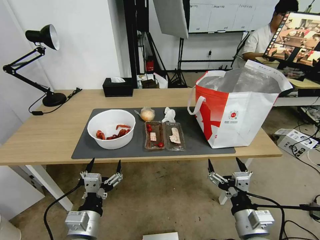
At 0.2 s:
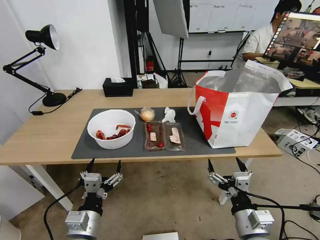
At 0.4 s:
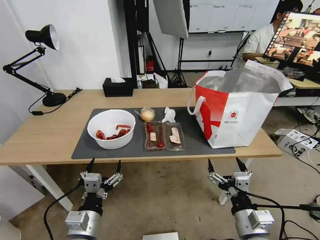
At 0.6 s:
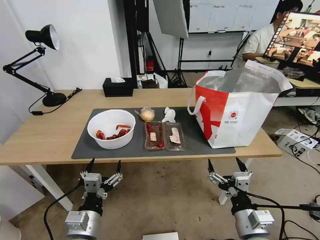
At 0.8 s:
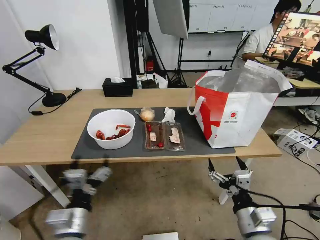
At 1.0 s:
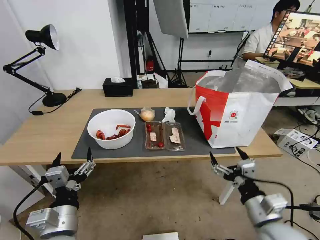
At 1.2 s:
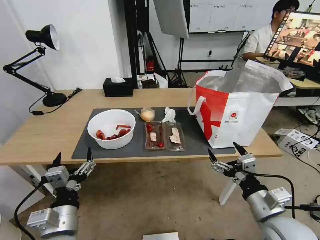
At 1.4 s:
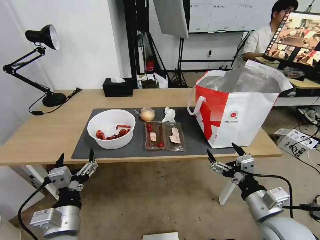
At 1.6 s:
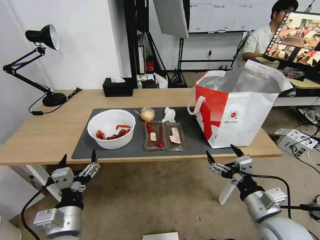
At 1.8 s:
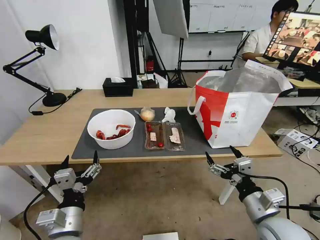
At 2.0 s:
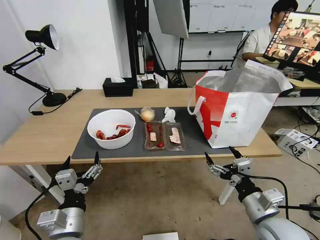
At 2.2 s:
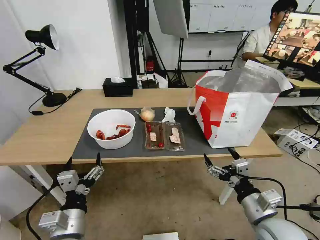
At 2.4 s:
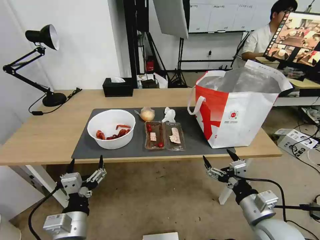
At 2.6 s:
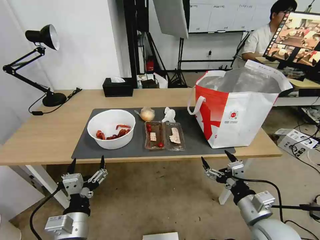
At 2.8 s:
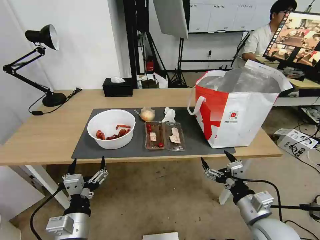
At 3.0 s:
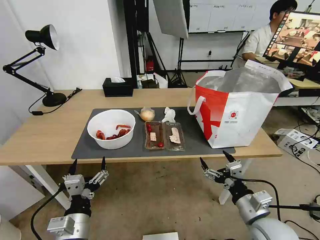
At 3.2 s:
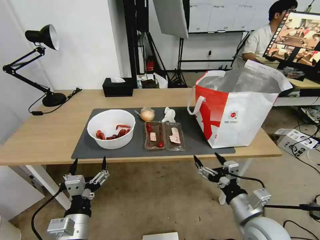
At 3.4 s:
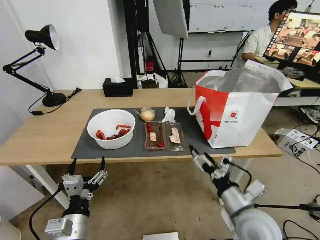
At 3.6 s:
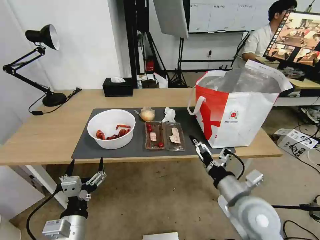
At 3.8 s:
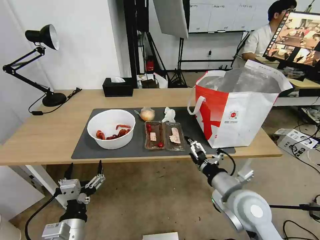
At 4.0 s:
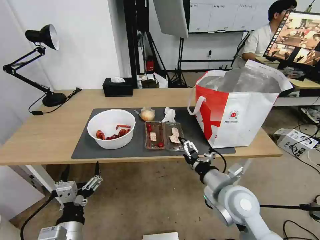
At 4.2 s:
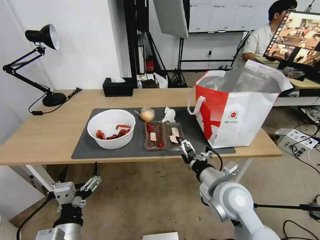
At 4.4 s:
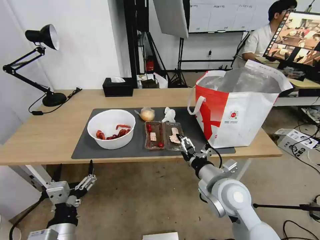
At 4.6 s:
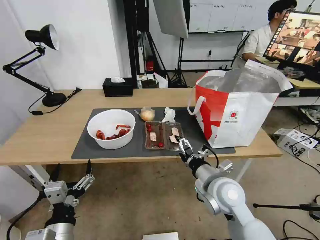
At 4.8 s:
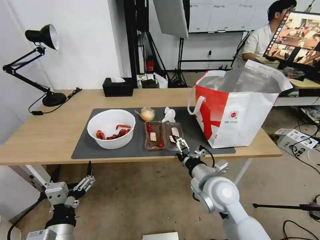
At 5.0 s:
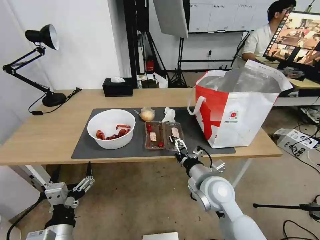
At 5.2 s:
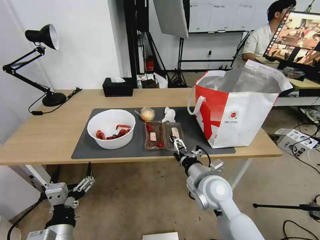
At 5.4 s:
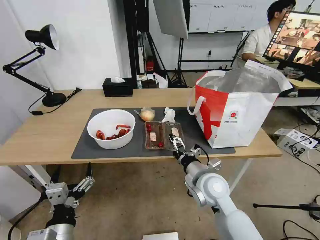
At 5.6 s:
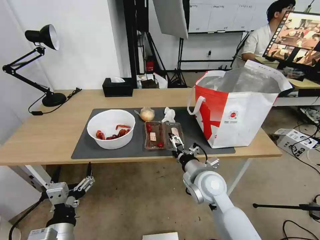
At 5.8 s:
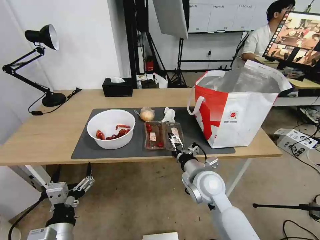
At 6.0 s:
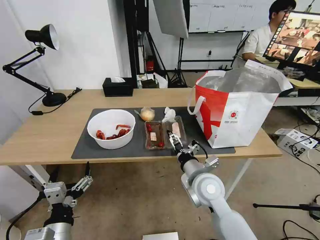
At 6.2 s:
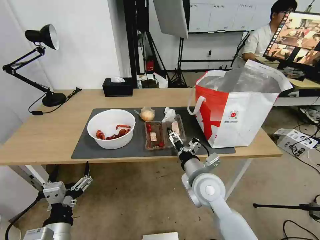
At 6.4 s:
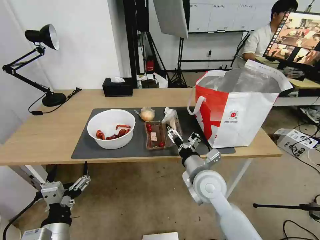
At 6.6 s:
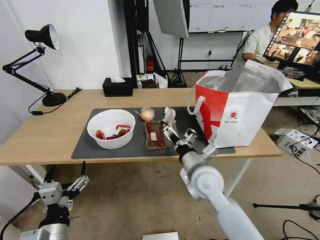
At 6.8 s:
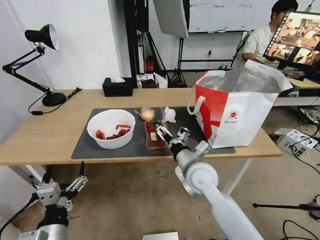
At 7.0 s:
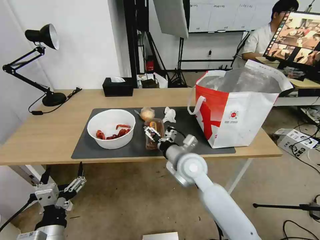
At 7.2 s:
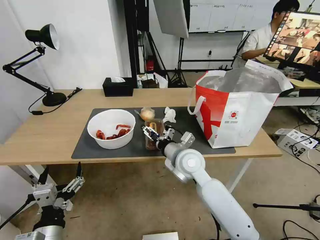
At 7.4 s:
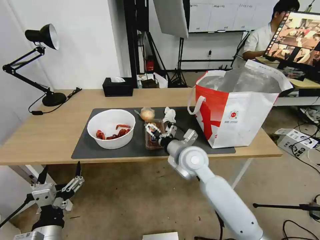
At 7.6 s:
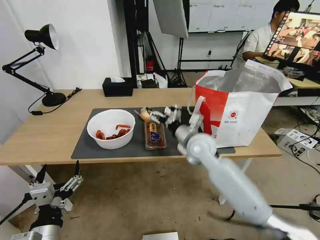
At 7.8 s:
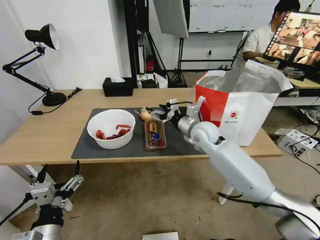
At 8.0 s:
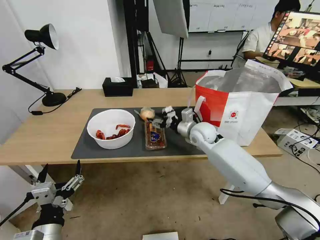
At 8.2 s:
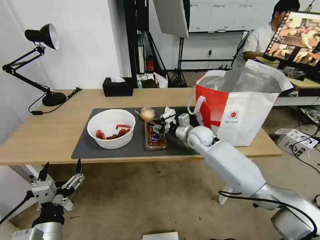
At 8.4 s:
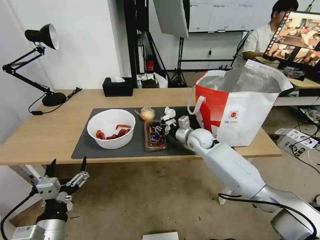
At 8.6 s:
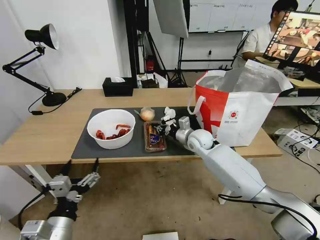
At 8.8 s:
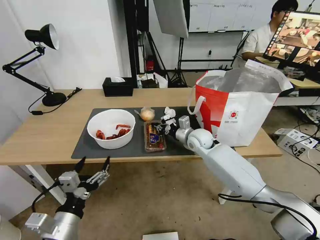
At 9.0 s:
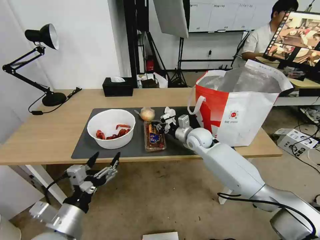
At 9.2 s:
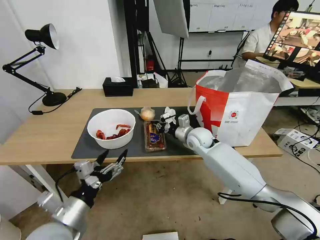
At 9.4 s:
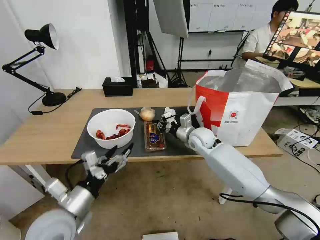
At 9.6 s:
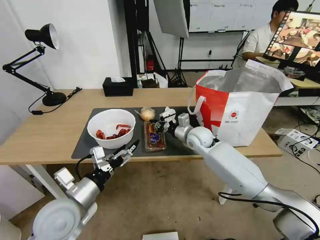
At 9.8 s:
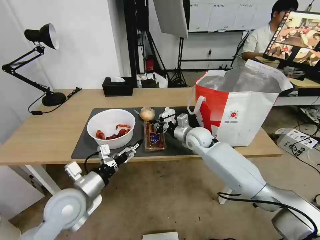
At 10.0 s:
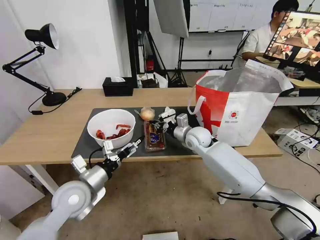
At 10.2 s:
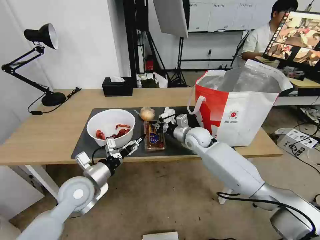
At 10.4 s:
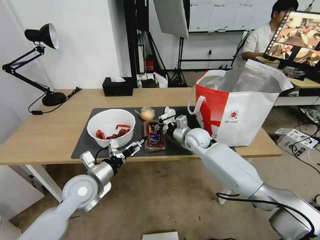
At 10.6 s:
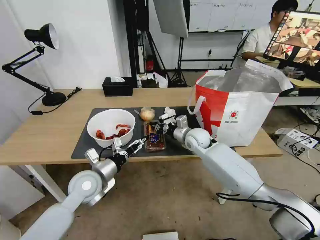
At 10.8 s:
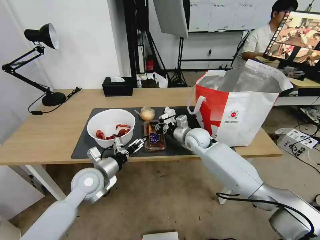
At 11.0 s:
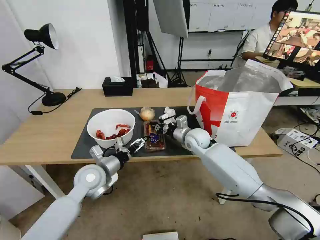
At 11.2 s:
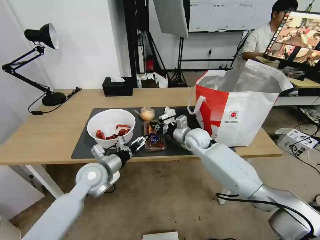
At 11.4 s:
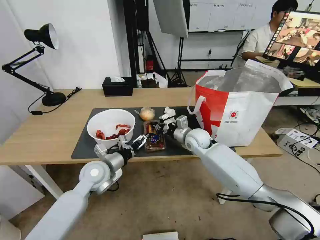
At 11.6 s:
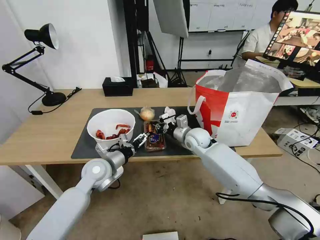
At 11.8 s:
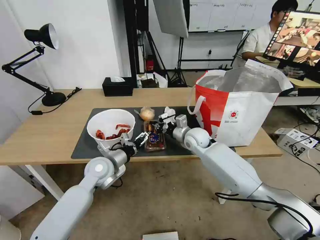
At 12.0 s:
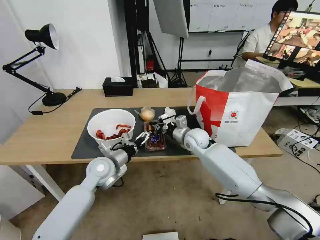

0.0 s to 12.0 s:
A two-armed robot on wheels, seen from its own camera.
Task of the whole recording: Pick up the trash from the table and place it into the takeout bag.
1.6 to 3.0 s: The grippers move only a little.
3.0 to 4.4 s: The right gripper goes about 15 cm to the left and forward.
4.4 to 6.0 s: The right gripper changes place by some 5 cm.
6.0 to 7.6 s: The right gripper goes some 10 cm forward.
7.6 to 9.0 s: The right gripper travels forward and downward by about 10 cm, and closes up.
9.0 to 10.4 s: The left gripper heads forward, covering roughly 15 cm.
10.4 to 12.0 s: The left gripper goes about 5 cm forward.

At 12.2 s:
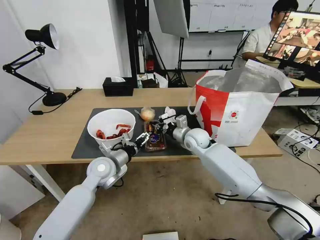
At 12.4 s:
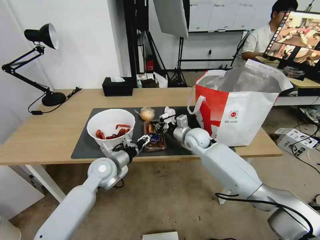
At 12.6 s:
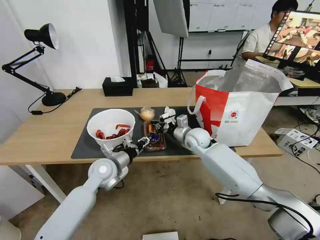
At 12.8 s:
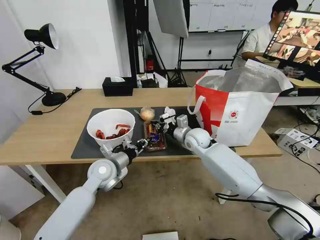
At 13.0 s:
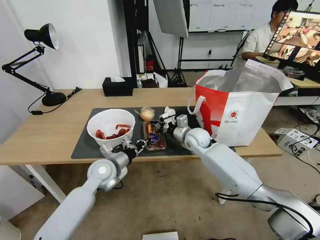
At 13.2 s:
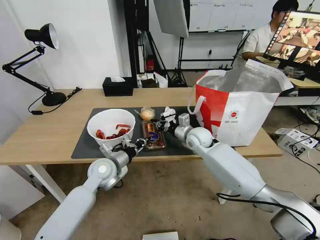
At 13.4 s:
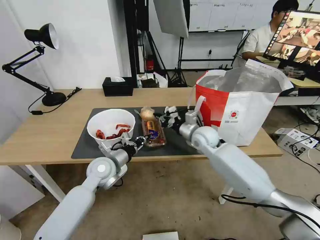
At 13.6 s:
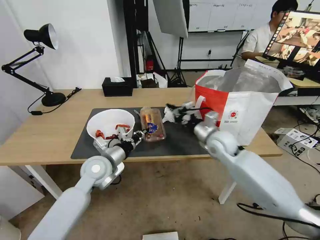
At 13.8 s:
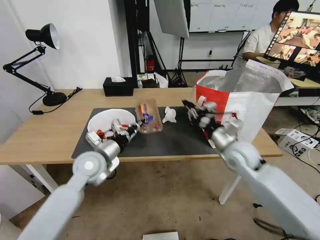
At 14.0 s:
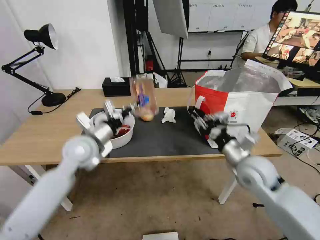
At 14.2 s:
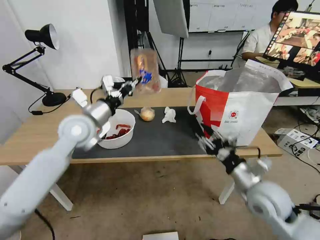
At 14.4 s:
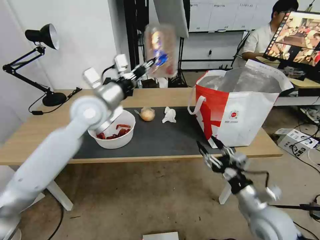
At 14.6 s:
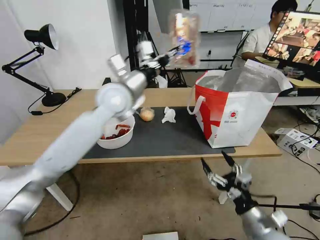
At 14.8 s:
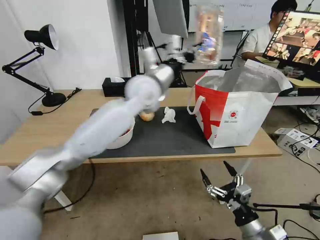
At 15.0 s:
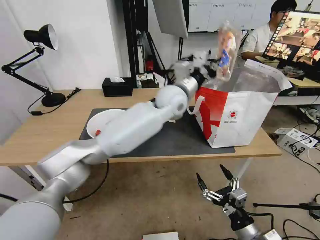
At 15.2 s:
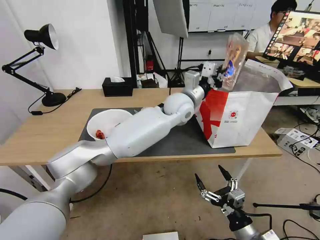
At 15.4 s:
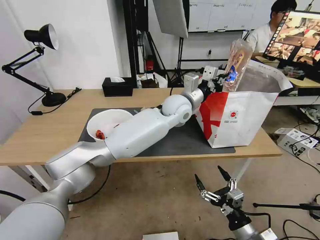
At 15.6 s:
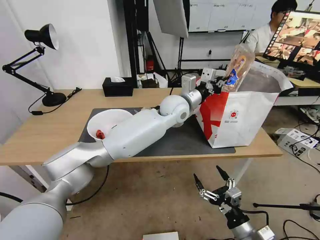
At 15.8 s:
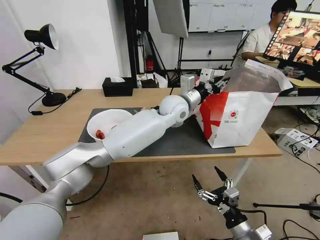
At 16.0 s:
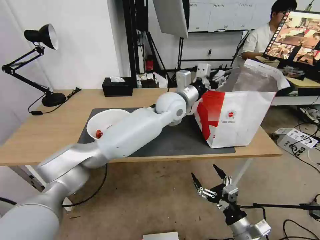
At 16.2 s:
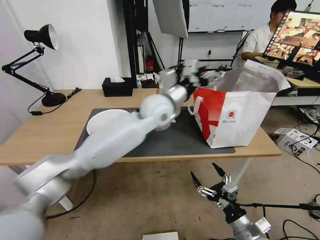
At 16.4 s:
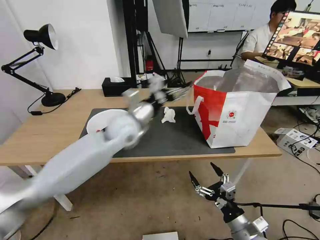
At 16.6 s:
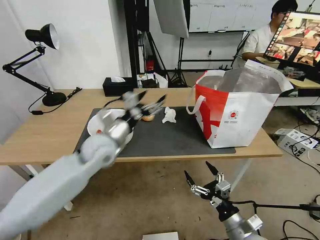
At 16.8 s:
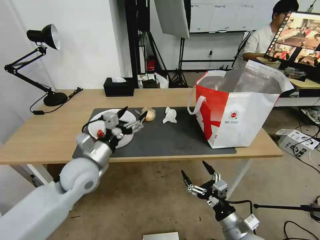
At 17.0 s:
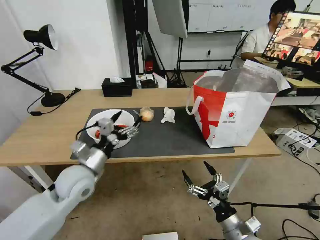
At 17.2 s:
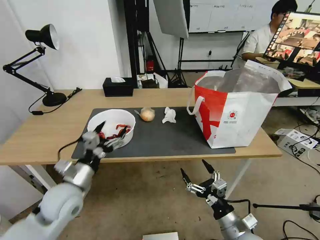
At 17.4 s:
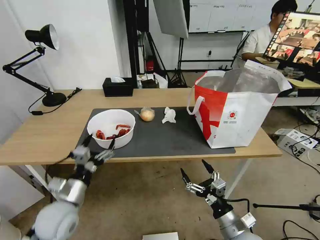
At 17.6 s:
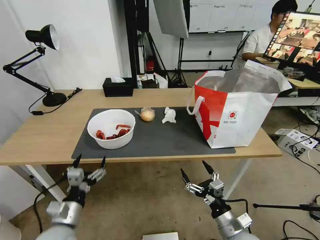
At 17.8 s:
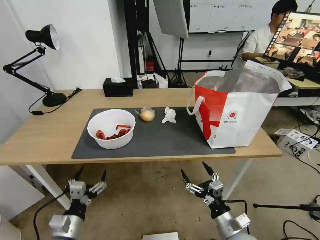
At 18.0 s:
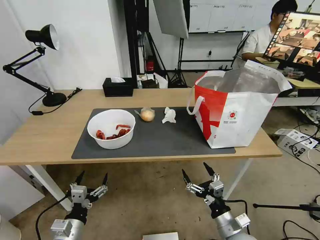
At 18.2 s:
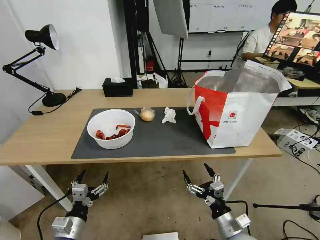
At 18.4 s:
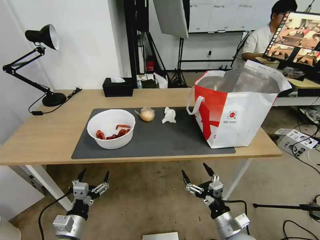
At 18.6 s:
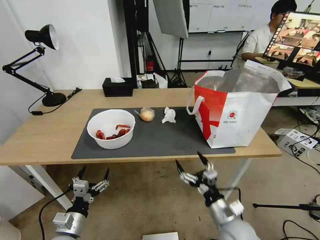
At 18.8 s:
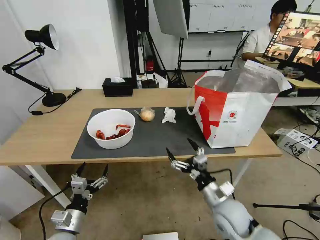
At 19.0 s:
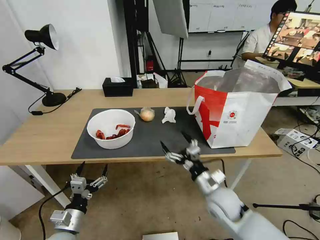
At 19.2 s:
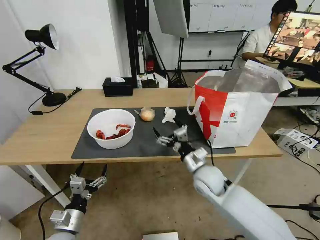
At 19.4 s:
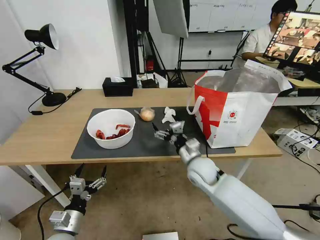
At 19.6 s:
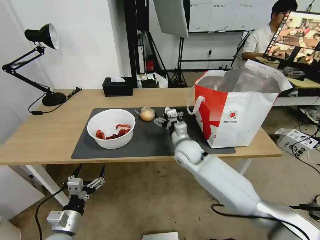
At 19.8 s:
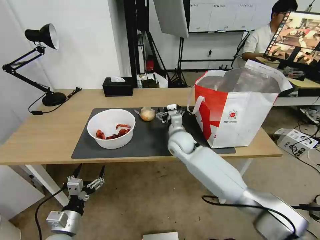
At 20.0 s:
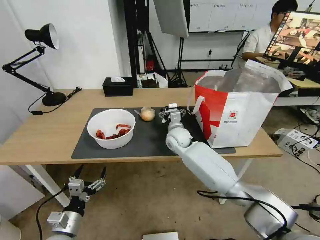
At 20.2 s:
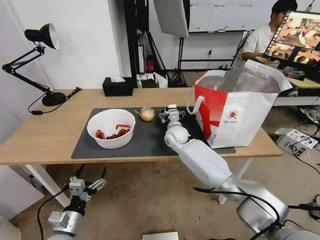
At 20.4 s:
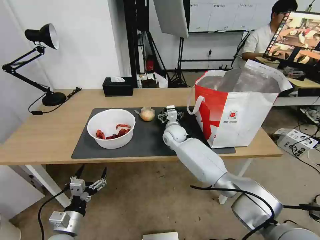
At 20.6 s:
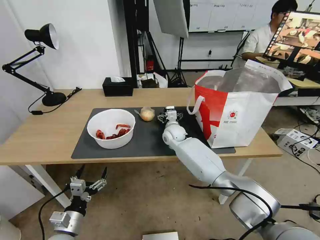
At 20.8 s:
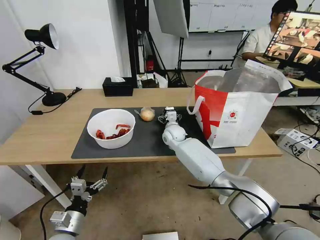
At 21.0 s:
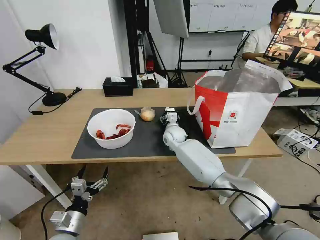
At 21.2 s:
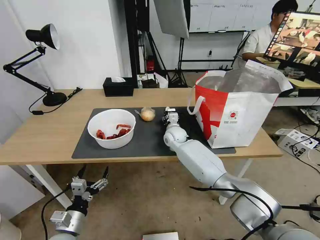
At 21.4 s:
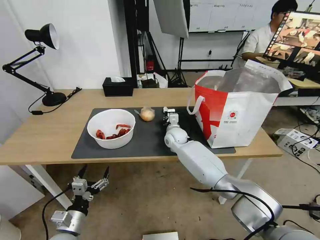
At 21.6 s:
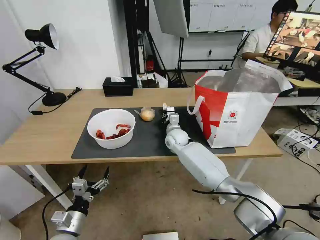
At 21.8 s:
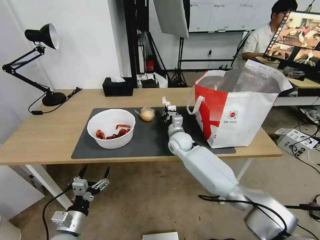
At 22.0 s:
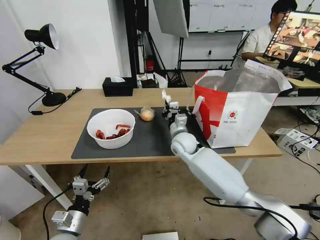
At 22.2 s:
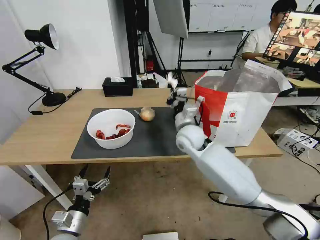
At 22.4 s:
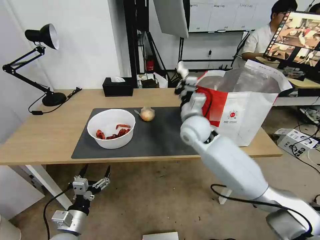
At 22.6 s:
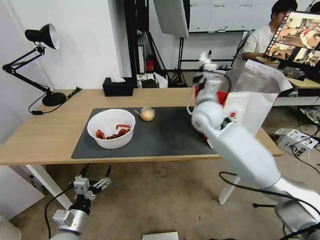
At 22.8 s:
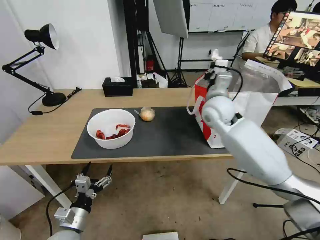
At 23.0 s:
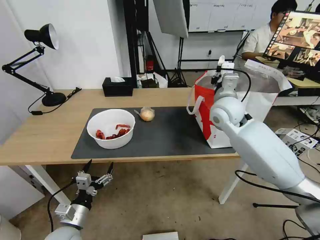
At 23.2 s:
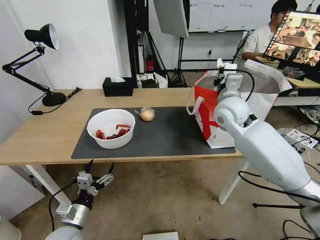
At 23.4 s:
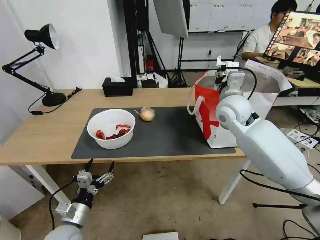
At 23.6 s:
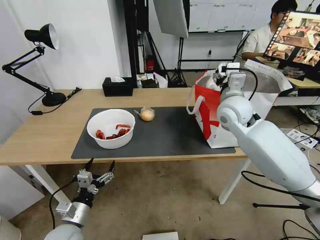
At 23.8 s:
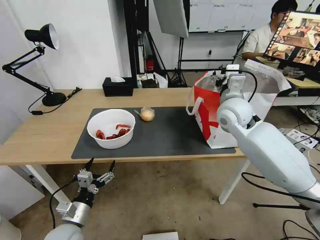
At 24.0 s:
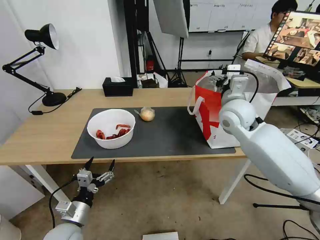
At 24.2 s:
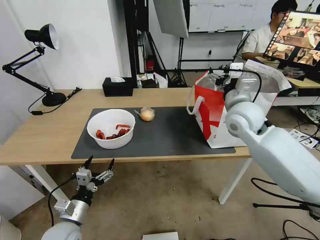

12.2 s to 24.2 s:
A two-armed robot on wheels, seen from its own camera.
Task of the whole recording: Pick up the trash from the table and place it into the takeout bag.
12.2 to 13.8 s: The left gripper heads upward, covering some 5 cm, and closes its fingers. Meanwhile the right gripper shifts approximately 15 cm backward, to the right and upward.
13.8 to 15.2 s: The left gripper heads to the right and forward, covering some 30 cm. Meanwhile the right gripper shifts about 30 cm backward and downward, and opens its fingers.
15.2 to 16.6 s: The left gripper heads to the left and backward, covering some 30 cm, and opens.
16.6 to 18.2 s: The left gripper shifts some 30 cm backward, downward and to the left.
18.2 to 19.8 s: The right gripper goes approximately 35 cm forward and to the left.
19.8 to 21.2 s: The right gripper goes some 5 cm forward, and closes its fingers.
21.2 to 22.6 s: The right gripper is displaced upward, to the right and backward by about 20 cm, and closes its fingers.
22.6 to 24.2 s: The right gripper moves to the right, roughly 10 cm, and opens its fingers.
